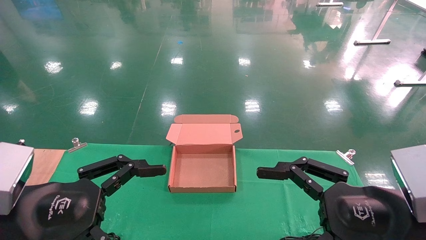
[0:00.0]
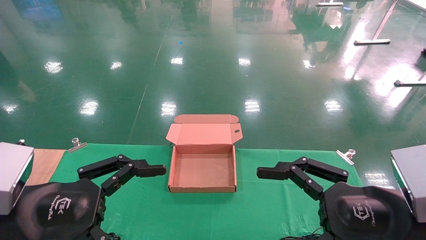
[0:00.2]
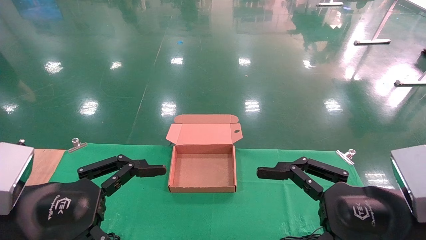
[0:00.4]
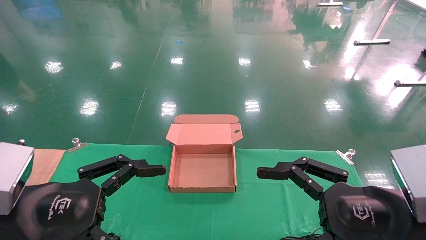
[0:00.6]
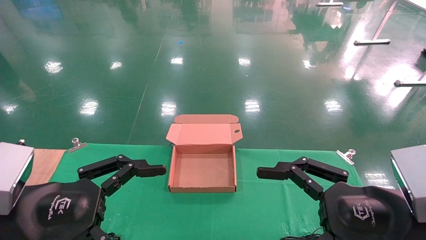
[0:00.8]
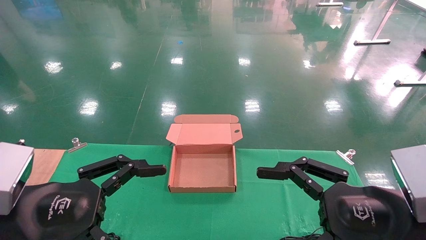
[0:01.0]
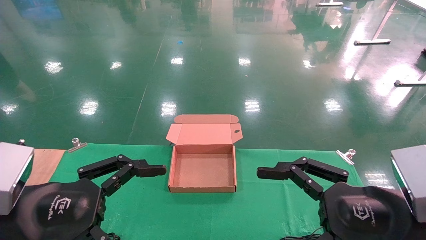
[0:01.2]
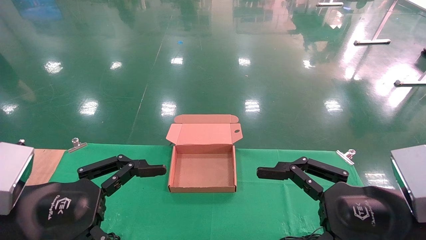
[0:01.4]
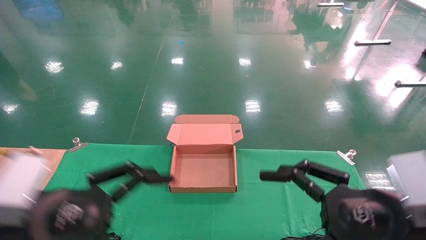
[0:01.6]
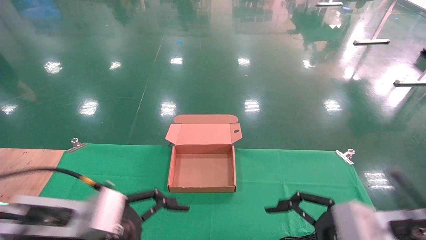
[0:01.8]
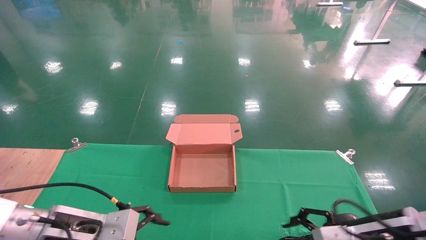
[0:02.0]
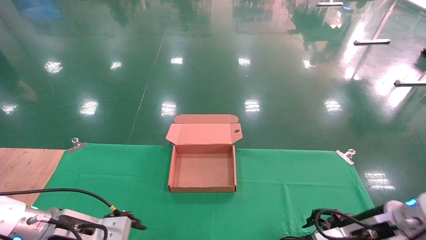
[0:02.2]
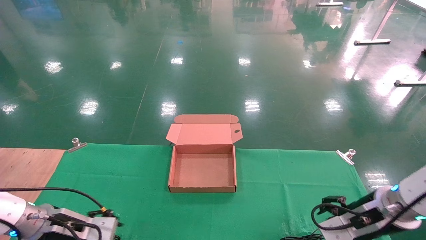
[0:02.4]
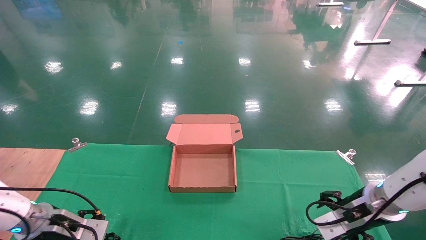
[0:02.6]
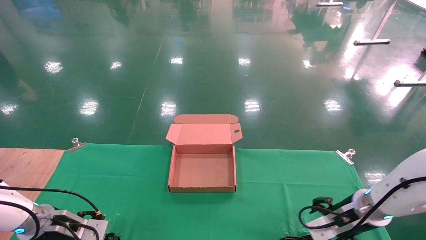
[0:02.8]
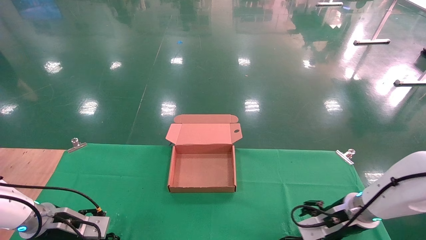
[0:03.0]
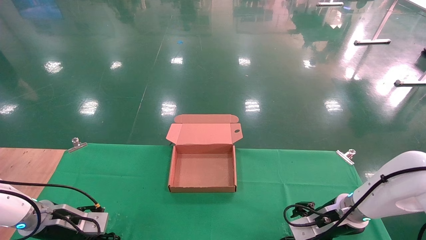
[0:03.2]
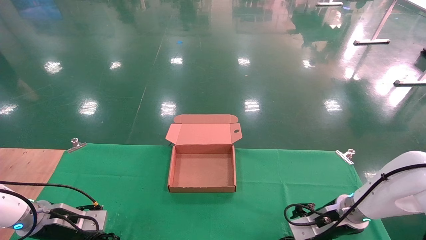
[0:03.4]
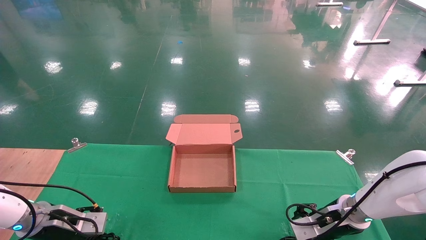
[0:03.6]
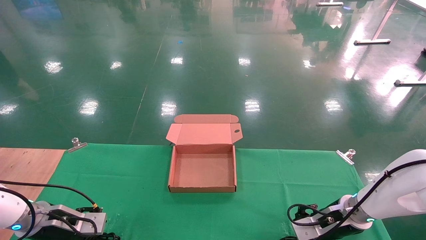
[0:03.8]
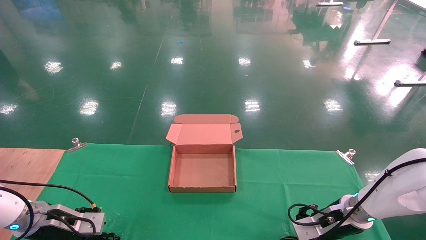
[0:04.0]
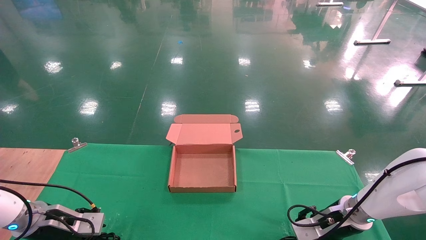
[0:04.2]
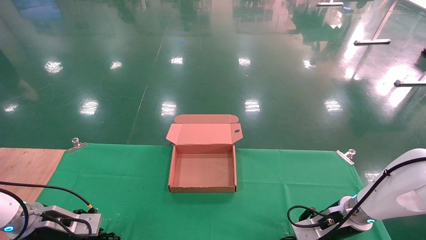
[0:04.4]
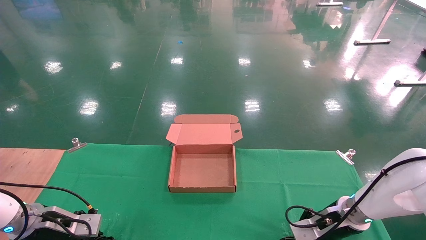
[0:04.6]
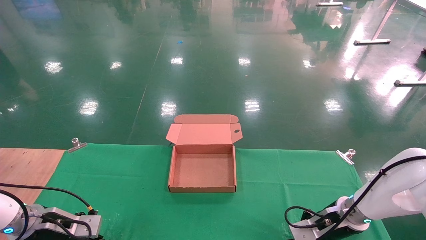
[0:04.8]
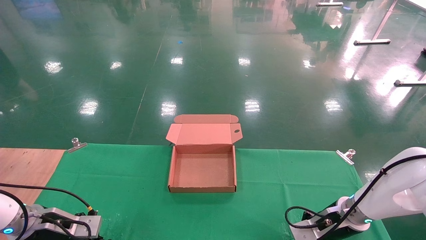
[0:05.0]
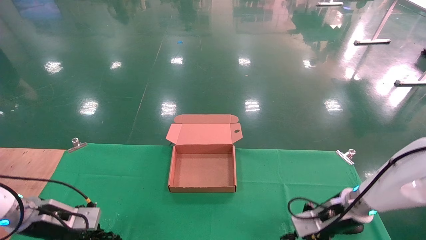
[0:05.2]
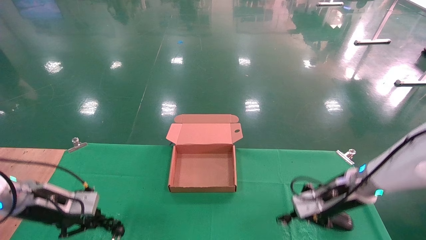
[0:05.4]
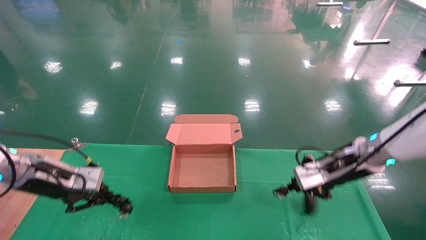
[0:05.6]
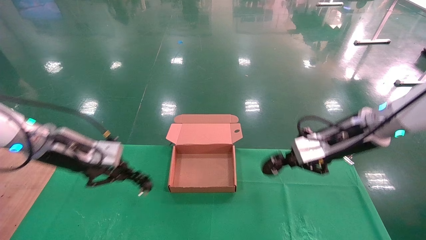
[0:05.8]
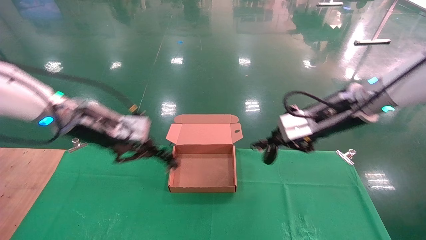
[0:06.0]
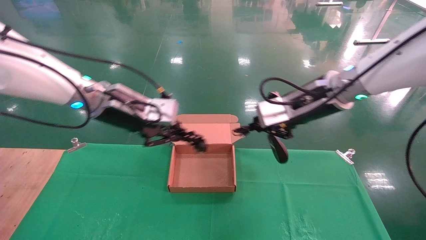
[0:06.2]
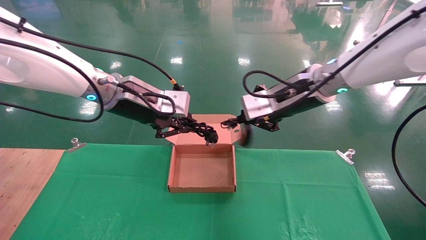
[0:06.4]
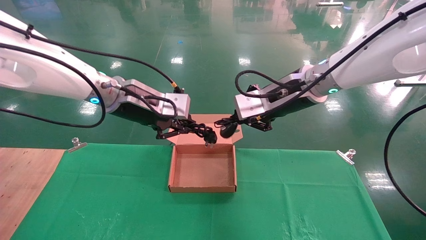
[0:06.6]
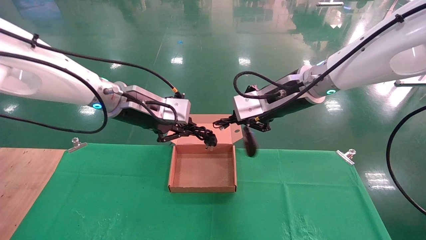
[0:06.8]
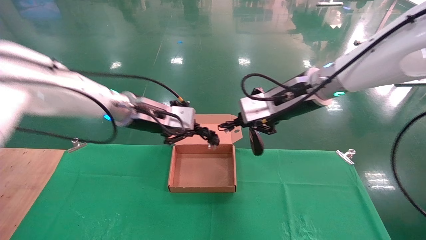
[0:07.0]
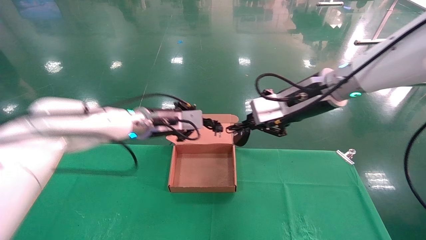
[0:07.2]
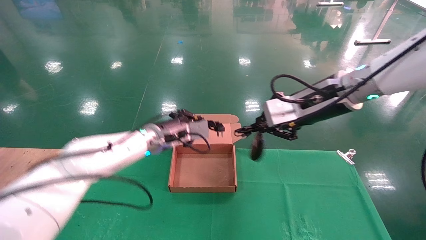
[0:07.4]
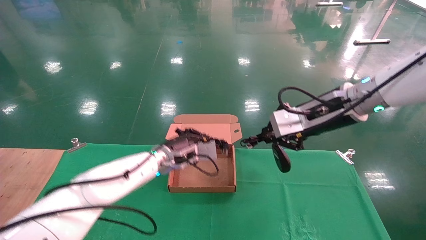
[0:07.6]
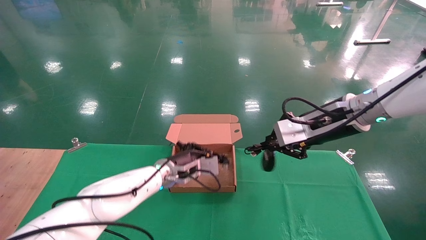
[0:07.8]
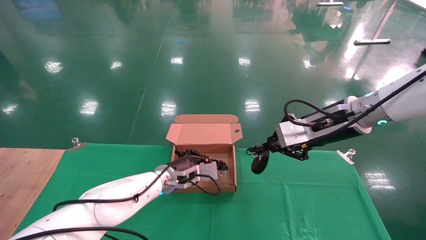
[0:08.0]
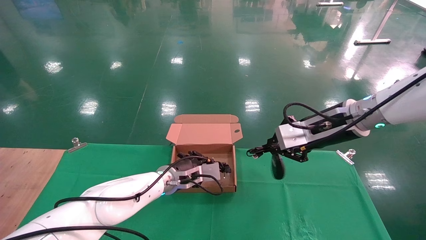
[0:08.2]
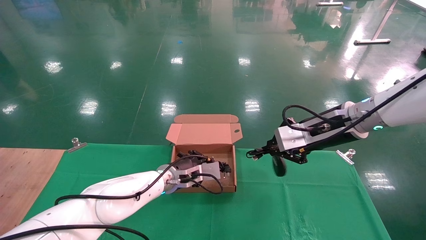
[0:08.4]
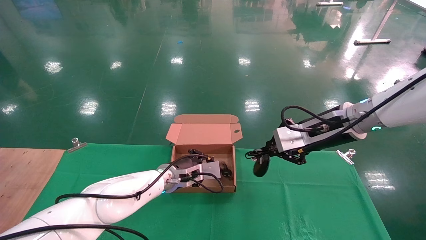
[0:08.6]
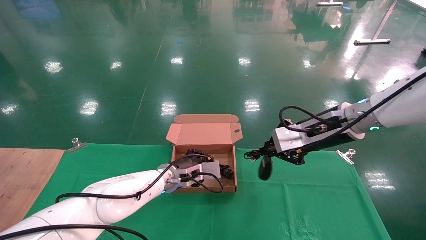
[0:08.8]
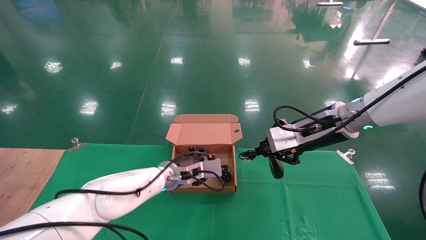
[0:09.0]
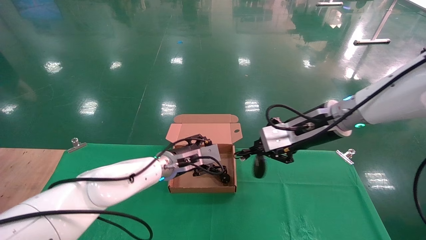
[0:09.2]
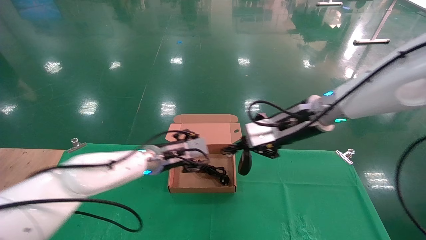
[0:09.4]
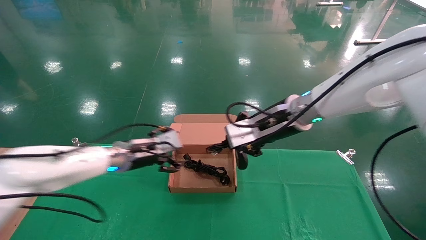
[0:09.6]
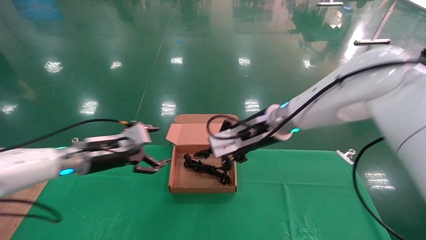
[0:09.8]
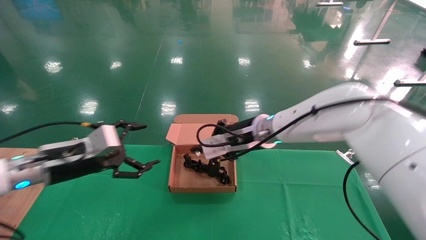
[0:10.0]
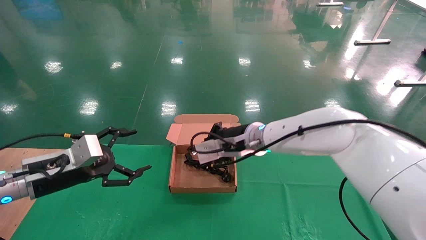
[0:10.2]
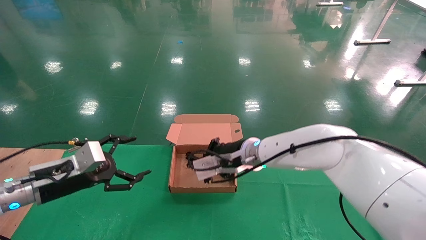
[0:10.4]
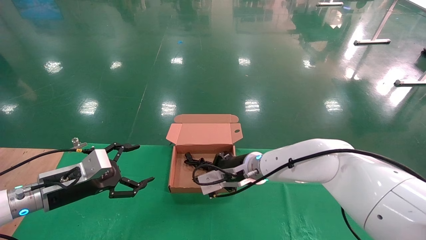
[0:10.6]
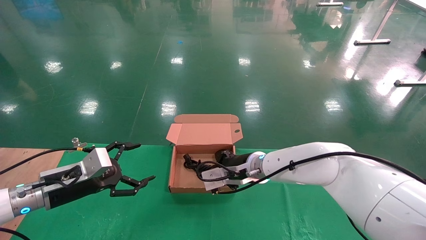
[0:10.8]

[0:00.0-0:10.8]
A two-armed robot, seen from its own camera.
Step, 0:02.0 to 0:06.0: Grab and lift both the mouse and power cord from the accessory packaging area at the same time.
0:00.0 to 0:01.6: The grippers make only small movements.
0:01.6 to 0:03.0: The right gripper moves forward and downward, some 25 cm. The left gripper goes approximately 25 cm forward, downward and to the left.
0:03.0 to 0:04.6: The left gripper closes its fingers. Meanwhile the right gripper closes up.
0:04.6 to 0:06.2: The left gripper travels upward and to the right by about 30 cm. Meanwhile the right gripper shifts roughly 30 cm upward, and closes its fingers.
0:06.2 to 0:07.8: The left gripper heads downward, forward and to the right, covering roughly 25 cm.
0:07.8 to 0:09.2: The left gripper opens.
0:09.2 to 0:10.8: The right gripper is displaced downward, to the left and forward by approximately 20 cm, while the left gripper shifts some 25 cm to the left and backward, and opens its fingers.

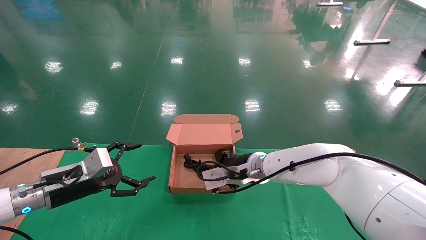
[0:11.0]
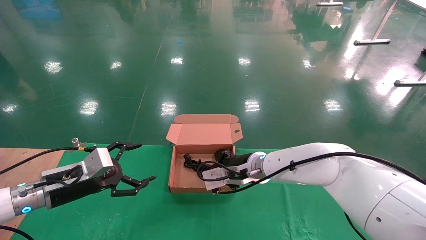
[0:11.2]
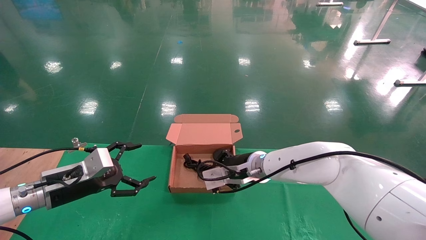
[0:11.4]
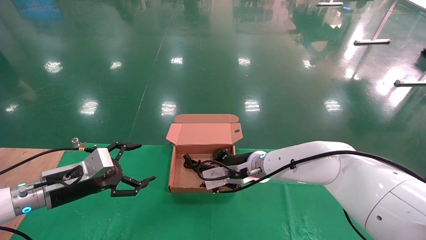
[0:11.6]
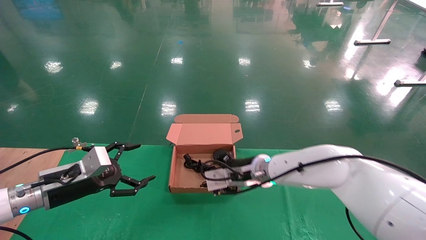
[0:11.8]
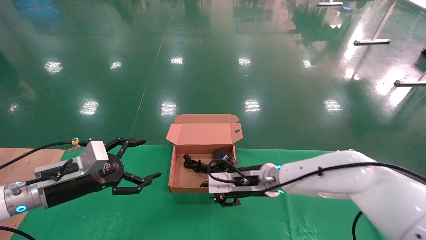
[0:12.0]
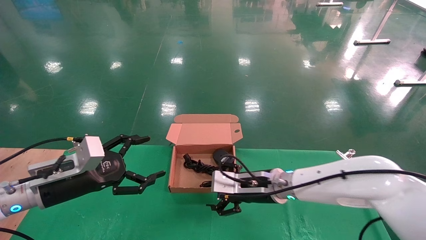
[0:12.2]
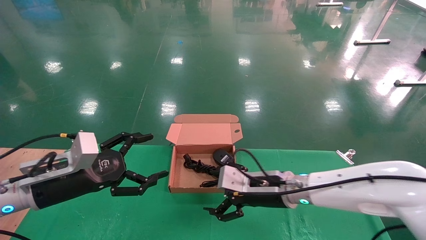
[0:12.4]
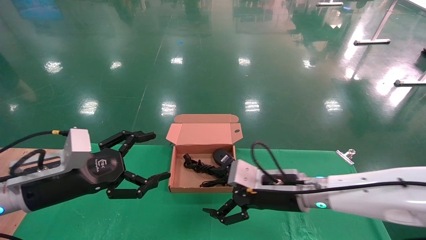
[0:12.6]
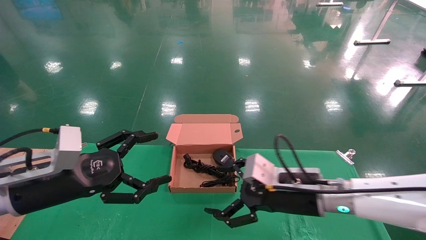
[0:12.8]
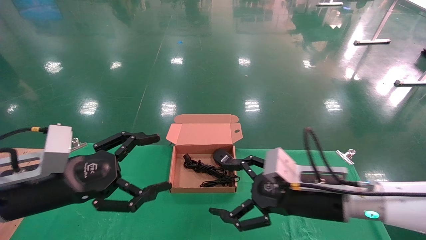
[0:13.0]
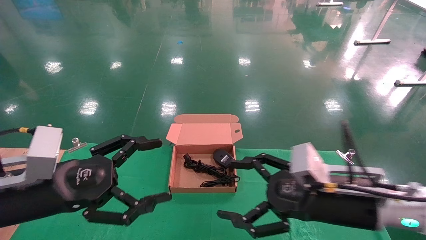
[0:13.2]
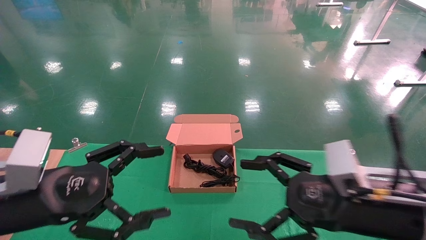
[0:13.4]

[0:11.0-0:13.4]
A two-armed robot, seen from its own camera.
0:11.0 to 0:12.2: The left gripper shifts by approximately 5 cm, while the right gripper moves some 5 cm, and opens.
0:12.2 to 0:13.4: The right gripper travels backward, to the right and upward by roughly 20 cm, while the left gripper heads backward and upward, covering roughly 15 cm.
